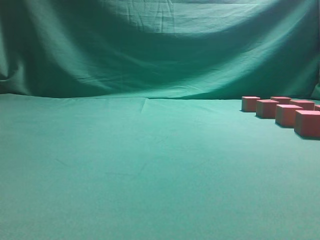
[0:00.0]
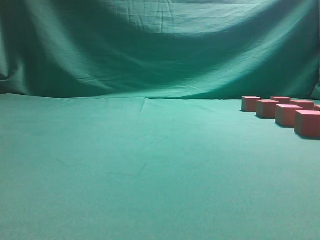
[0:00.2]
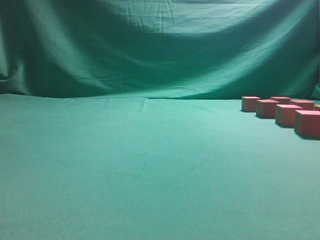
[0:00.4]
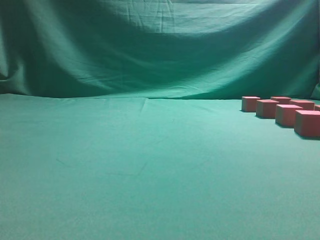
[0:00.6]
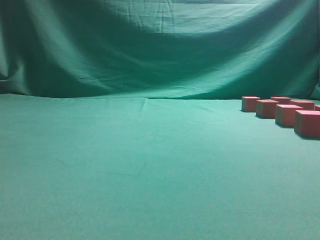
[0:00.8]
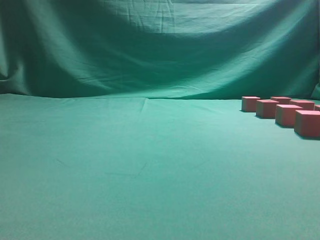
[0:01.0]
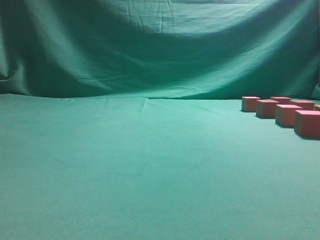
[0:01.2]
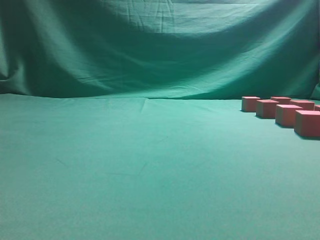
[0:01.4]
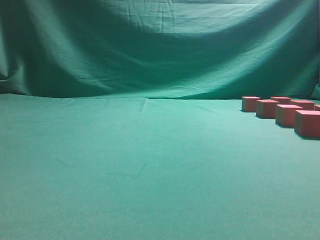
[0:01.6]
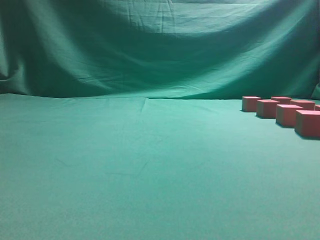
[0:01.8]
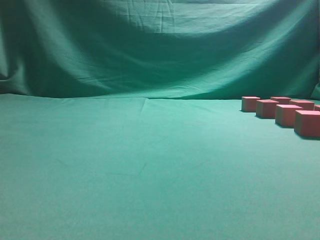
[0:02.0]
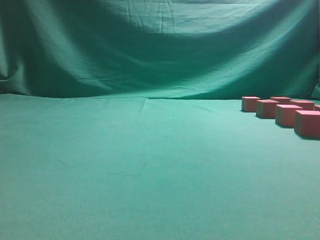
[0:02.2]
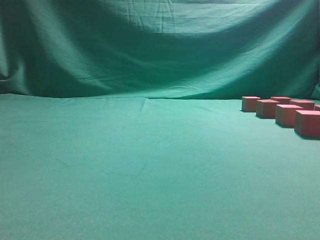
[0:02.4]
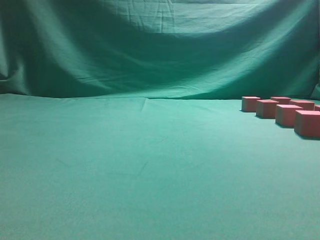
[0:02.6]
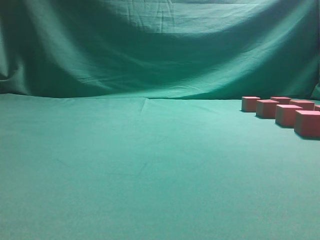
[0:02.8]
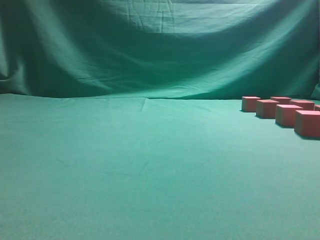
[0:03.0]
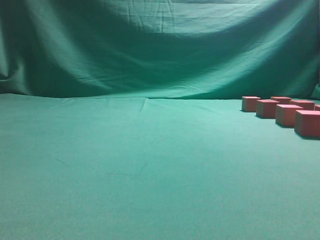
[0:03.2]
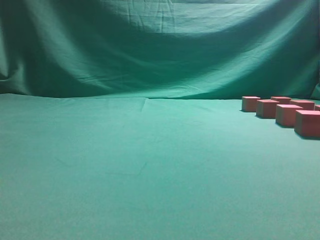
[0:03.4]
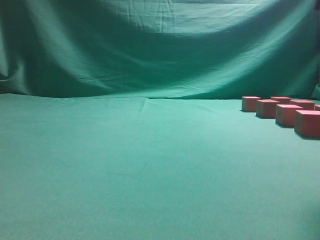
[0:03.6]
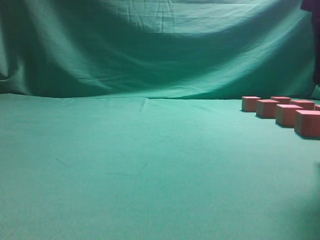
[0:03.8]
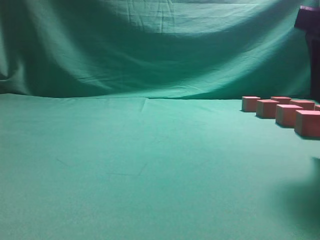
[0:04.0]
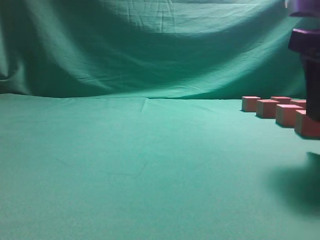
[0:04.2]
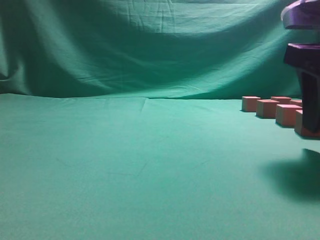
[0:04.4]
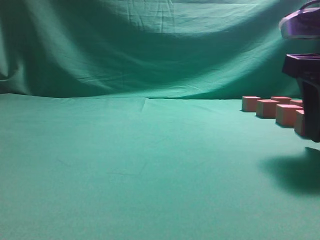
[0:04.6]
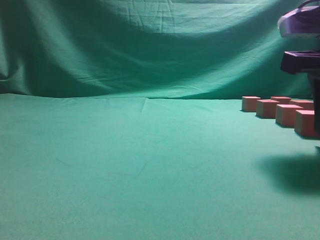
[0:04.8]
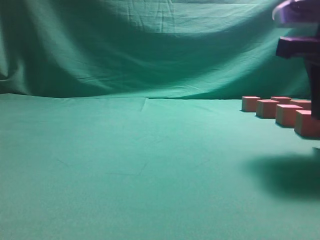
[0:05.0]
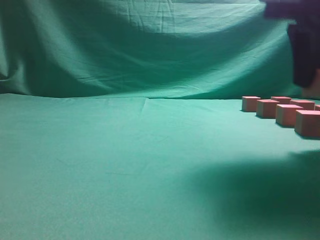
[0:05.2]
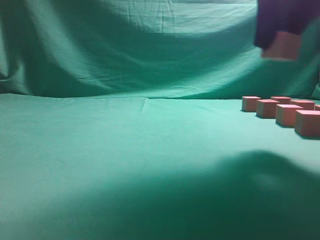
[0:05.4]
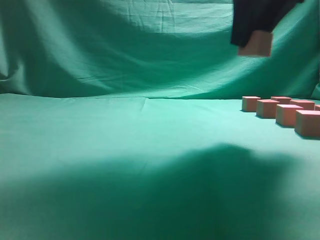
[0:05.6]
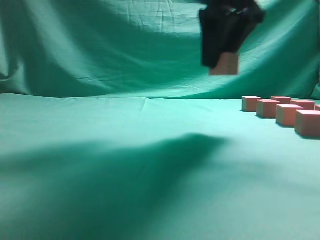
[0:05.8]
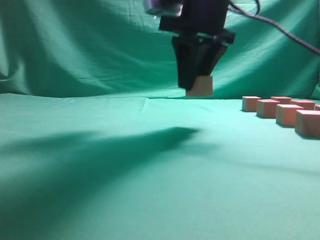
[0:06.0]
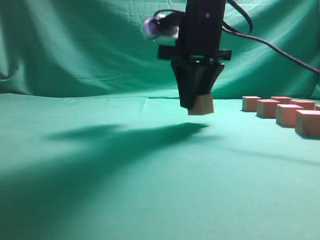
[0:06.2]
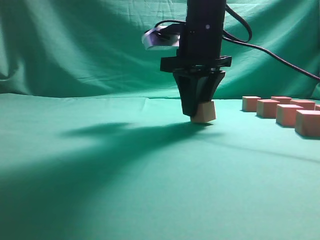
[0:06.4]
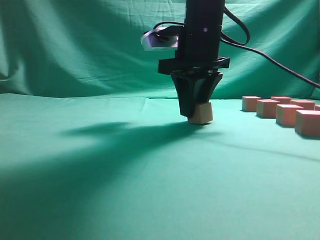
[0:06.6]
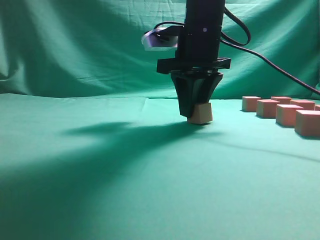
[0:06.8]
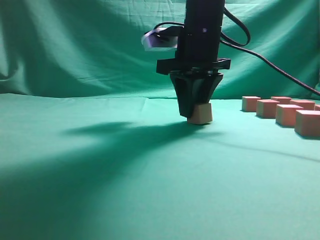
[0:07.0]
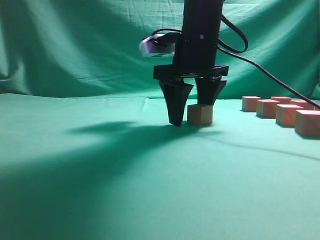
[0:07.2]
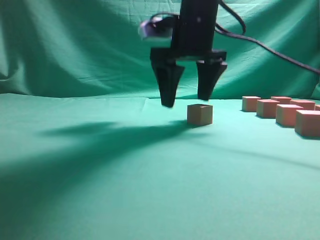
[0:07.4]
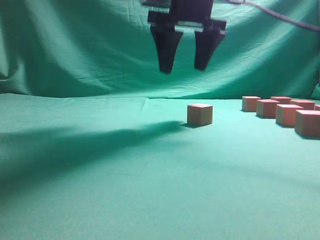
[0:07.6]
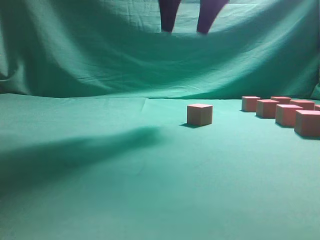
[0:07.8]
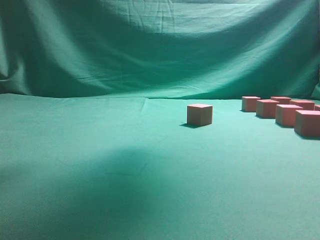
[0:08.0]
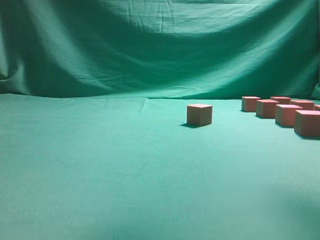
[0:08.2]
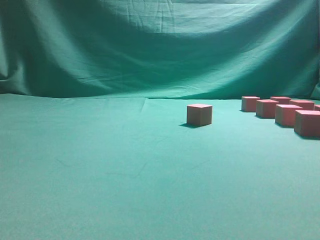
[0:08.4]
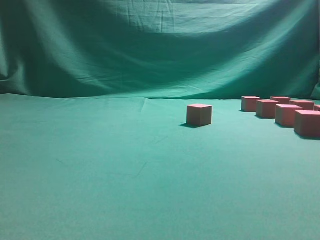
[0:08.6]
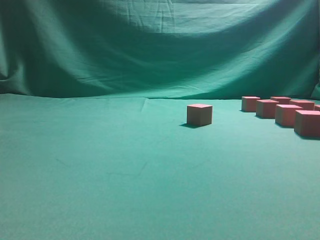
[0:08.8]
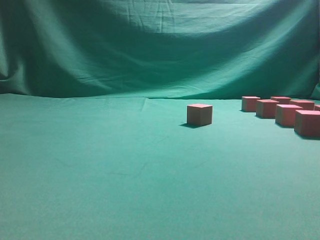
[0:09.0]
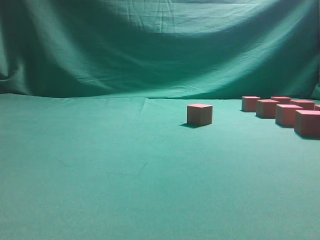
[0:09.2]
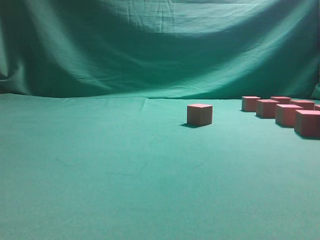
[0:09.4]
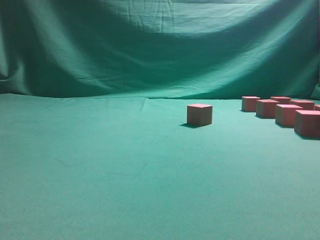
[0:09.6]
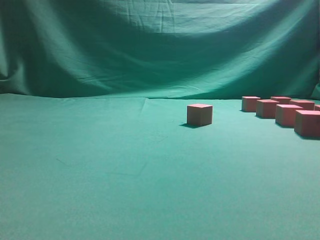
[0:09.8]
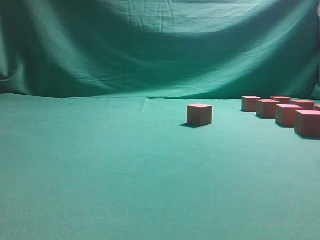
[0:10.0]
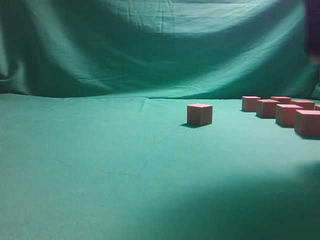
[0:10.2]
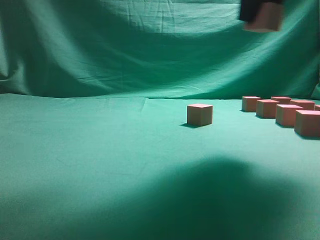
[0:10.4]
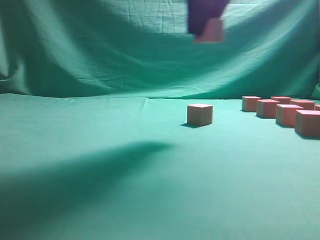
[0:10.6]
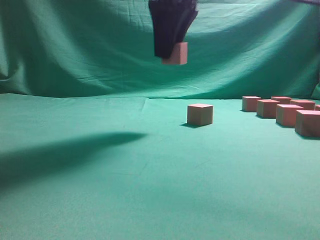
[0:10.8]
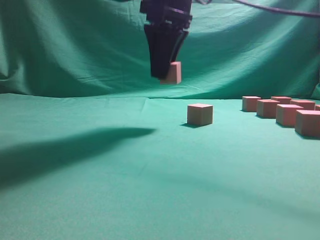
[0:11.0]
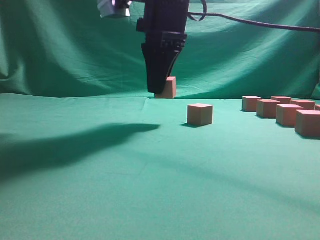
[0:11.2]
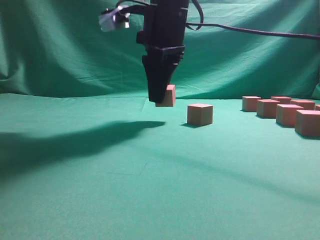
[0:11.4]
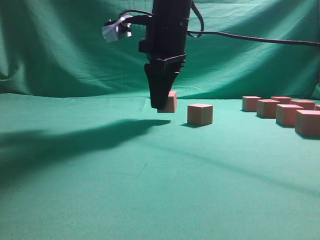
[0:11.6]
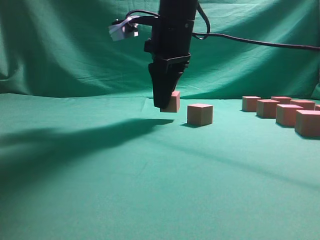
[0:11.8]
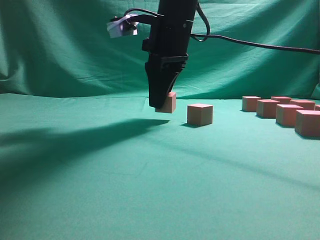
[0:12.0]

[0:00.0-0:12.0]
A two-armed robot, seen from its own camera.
Task of the whole recording: pick up the multiple cubes in two columns one by one and place them in another position on the table.
Step, 0.0 to 5.2 s: Pick up the block on the table.
Step, 5.4 to 7.6 s: Place the block at the correct position to assemble the letter S.
Step, 7.8 to 10.0 s: Pick up the block on the table.
3.0 to 4.4 s: The right gripper is displaced downward and forward by some 15 cm, and opens.
4.4 to 6.0 s: The right gripper goes approximately 20 cm to the left and forward, and closes its fingers.
6.0 to 7.6 s: The right gripper reaches roughly 5 cm downward, then returns, and opens up.
7.6 to 9.0 s: The right gripper travels to the right and backward by approximately 25 cm.
9.0 to 10.4 s: The right gripper heads to the left, upward and forward, covering approximately 15 cm, and closes its fingers.
10.4 to 12.0 s: The right gripper moves to the left, downward and forward, roughly 20 cm.

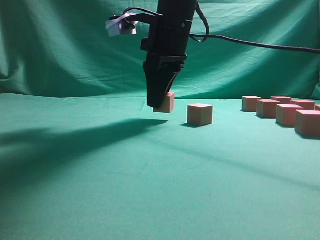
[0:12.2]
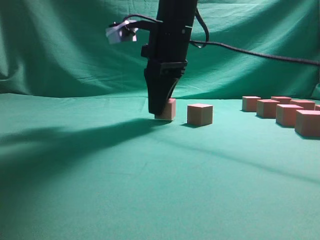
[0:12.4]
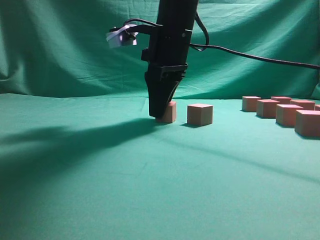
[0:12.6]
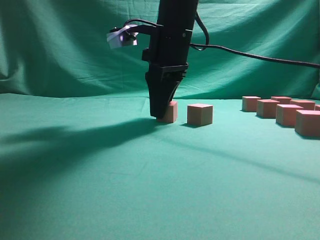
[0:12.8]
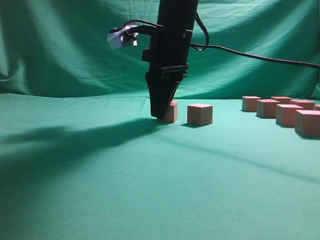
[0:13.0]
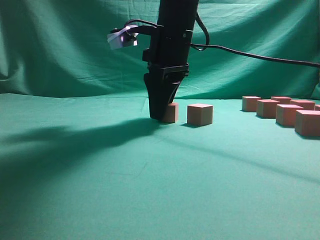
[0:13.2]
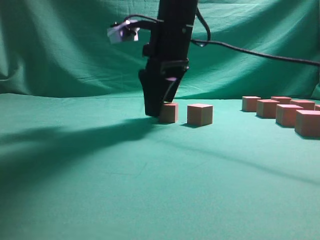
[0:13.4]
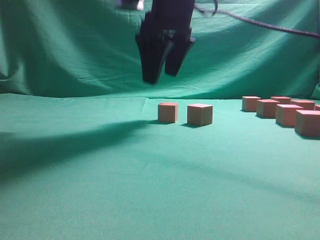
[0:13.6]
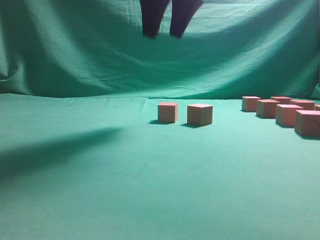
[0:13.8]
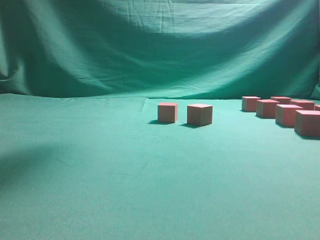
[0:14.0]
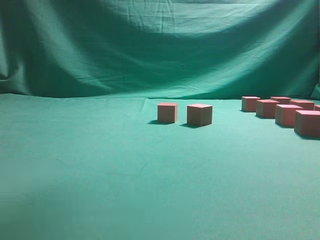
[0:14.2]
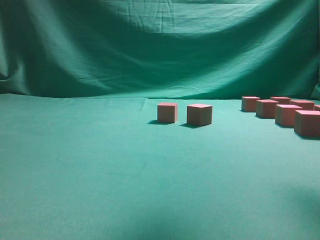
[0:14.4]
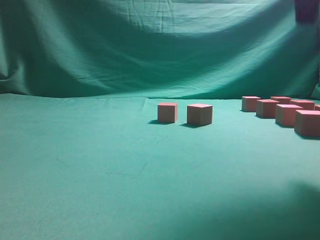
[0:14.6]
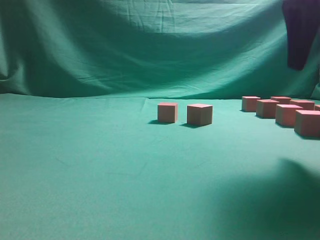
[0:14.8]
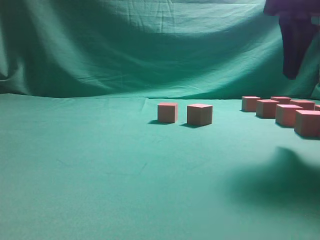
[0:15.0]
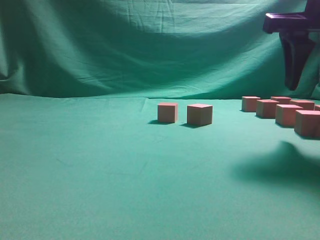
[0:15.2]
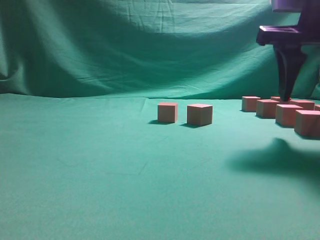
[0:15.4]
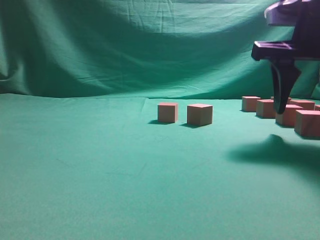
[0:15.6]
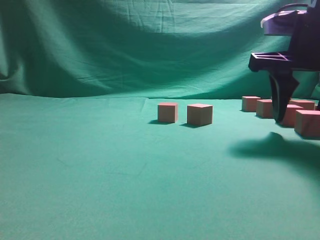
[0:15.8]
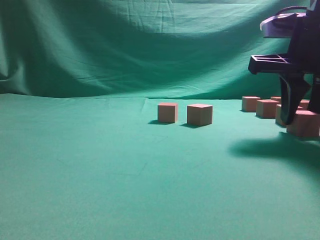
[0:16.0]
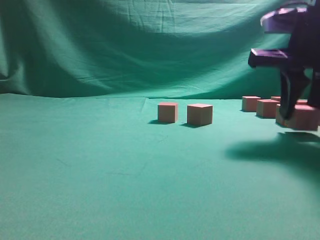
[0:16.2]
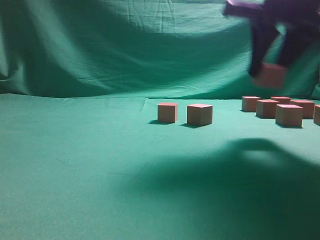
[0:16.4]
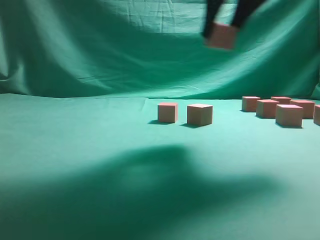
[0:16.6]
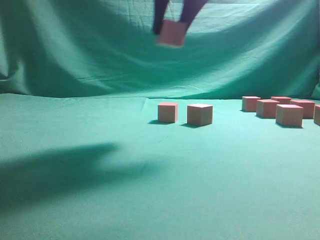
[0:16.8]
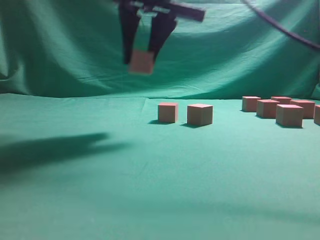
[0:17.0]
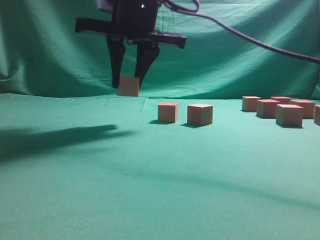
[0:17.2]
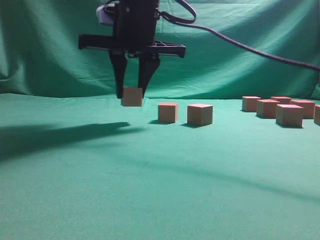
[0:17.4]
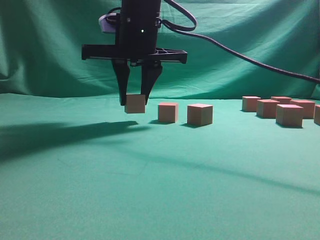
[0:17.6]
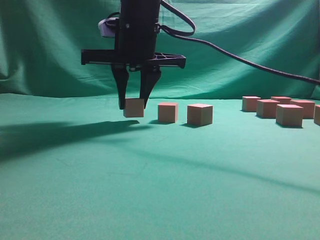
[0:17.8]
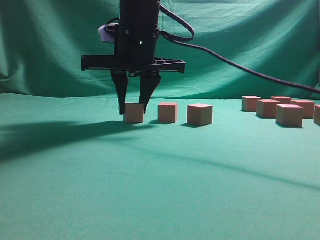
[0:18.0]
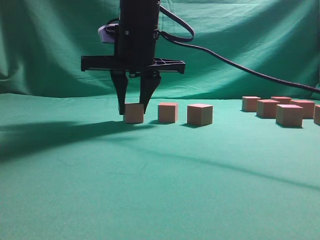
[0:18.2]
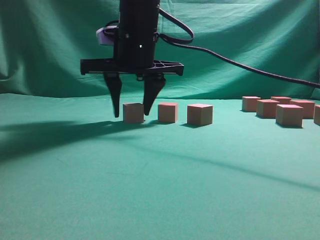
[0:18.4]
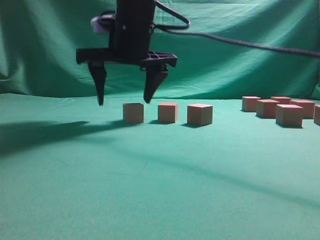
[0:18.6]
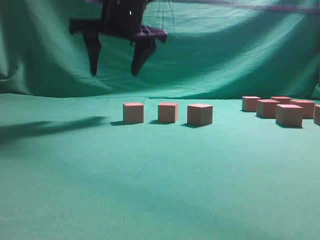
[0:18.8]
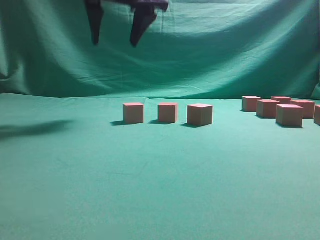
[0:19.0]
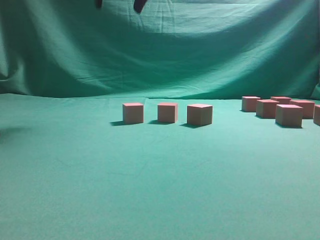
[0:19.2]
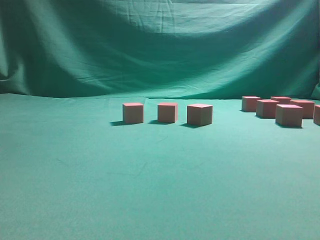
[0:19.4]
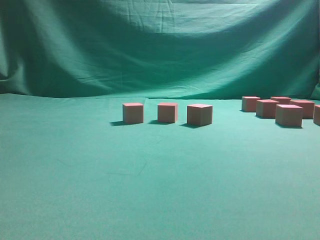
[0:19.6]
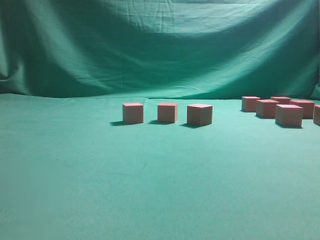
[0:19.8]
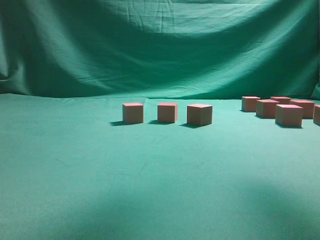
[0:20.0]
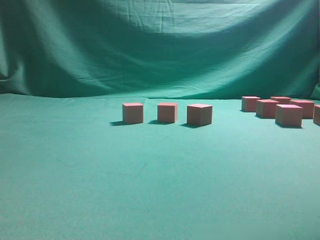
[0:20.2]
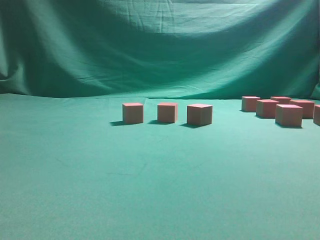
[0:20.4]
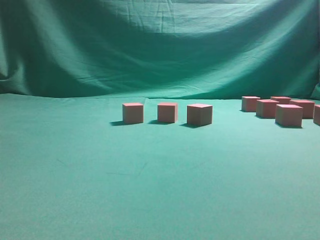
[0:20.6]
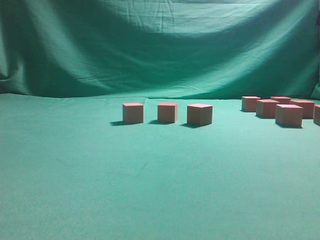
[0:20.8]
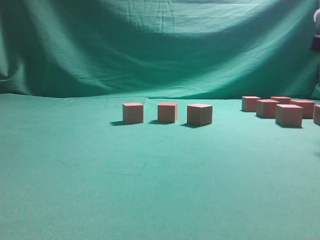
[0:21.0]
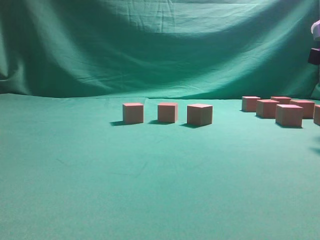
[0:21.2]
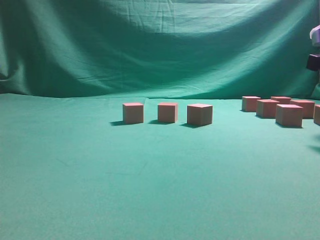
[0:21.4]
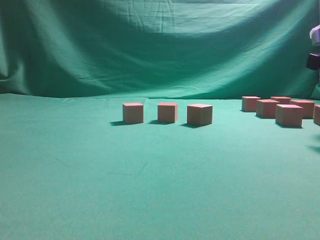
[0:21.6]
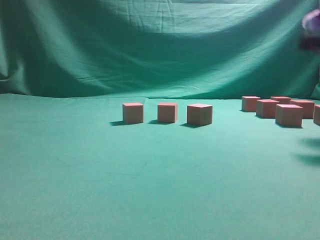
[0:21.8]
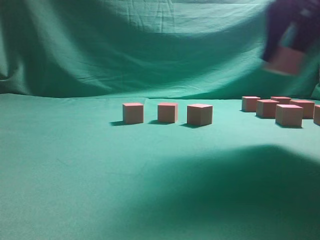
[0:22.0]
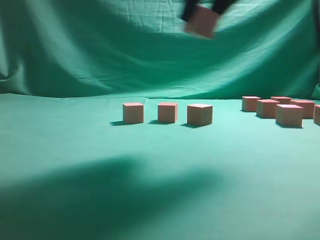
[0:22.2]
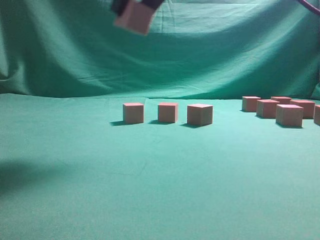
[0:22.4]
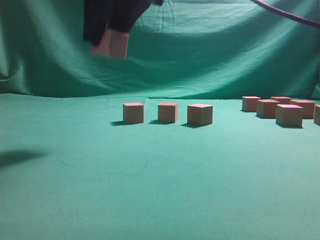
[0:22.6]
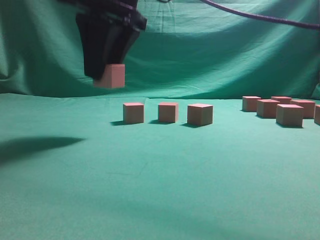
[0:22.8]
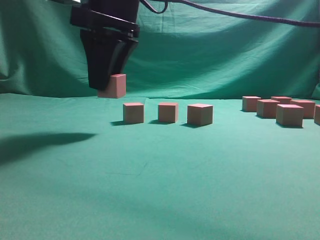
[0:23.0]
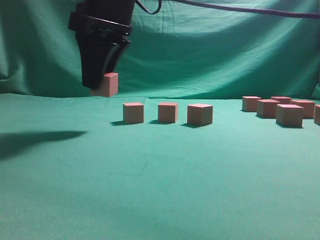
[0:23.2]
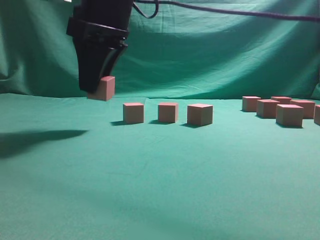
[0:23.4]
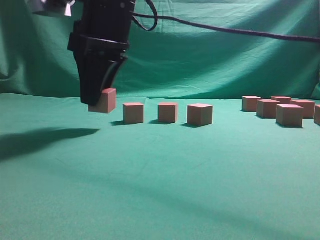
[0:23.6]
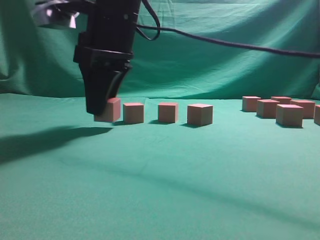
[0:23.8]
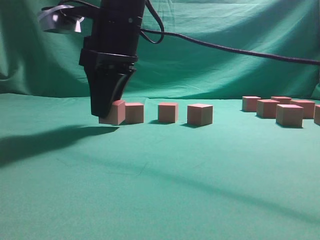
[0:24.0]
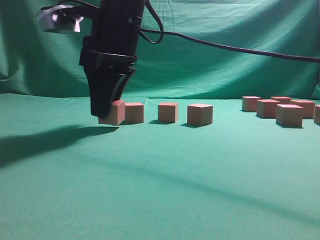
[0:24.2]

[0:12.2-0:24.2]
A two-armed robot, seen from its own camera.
Task of the whole recording: pick up the multiple cubes in two columns one by one and place them in another position on the table.
Step, 14.0 to 16.4 s: Pick up the block on the table.
Step, 16.8 to 19.0 s: Place the block at the correct position to assemble the letter S.
Step, 19.2 to 21.8 s: Pick up the block on the table.
12.2 to 13.8 s: The right gripper goes some 10 cm upward, and opens its fingers.
13.8 to 15.2 s: The right gripper moves to the right, backward and downward, roughly 20 cm.
15.2 to 16.6 s: The right gripper is displaced to the left and upward by approximately 10 cm, and closes up.
16.6 to 18.2 s: The right gripper is displaced to the left, downward and forward by approximately 20 cm.
18.2 to 19.8 s: The right gripper heads upward and to the right, covering roughly 25 cm, and opens its fingers.
21.2 to 22.6 s: The right gripper shifts approximately 30 cm to the left, and closes up.
22.6 to 24.2 s: The right gripper moves downward, approximately 10 cm.
